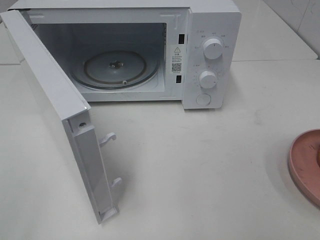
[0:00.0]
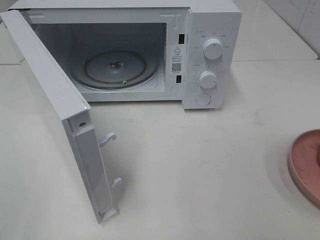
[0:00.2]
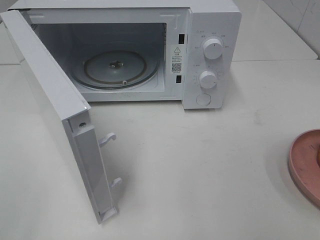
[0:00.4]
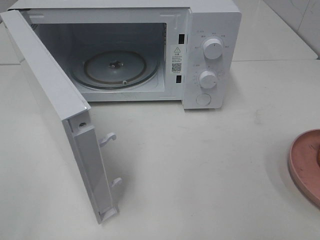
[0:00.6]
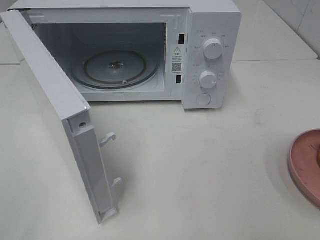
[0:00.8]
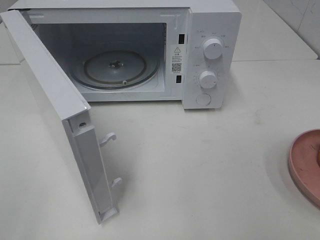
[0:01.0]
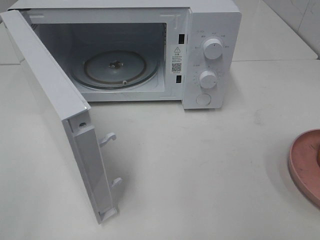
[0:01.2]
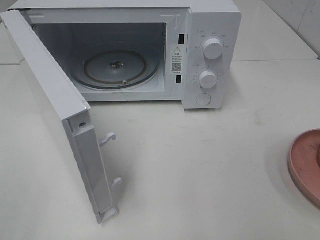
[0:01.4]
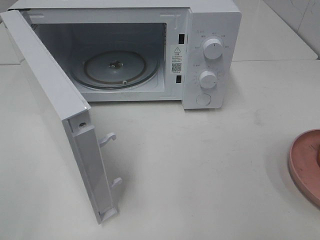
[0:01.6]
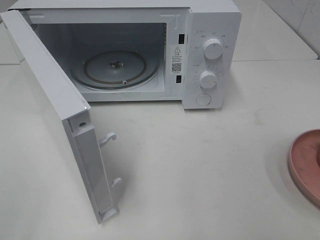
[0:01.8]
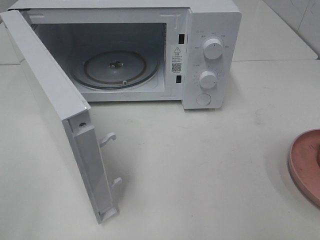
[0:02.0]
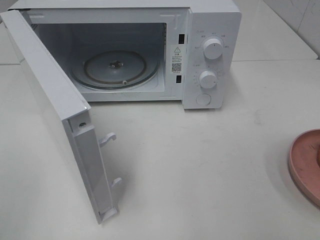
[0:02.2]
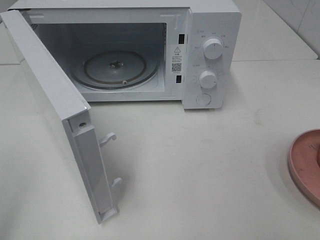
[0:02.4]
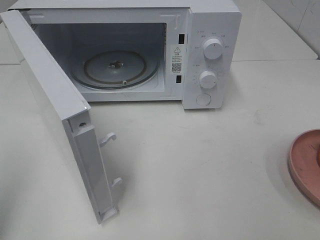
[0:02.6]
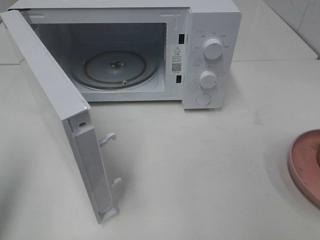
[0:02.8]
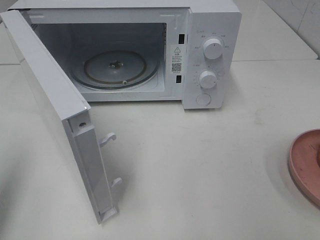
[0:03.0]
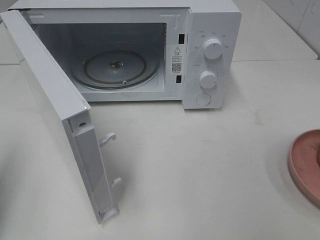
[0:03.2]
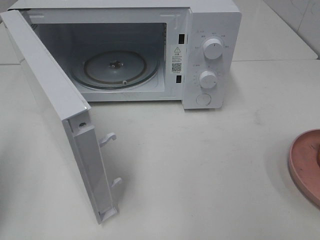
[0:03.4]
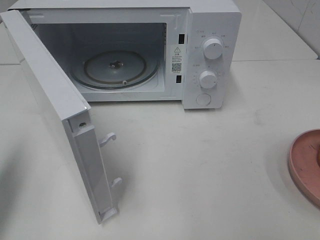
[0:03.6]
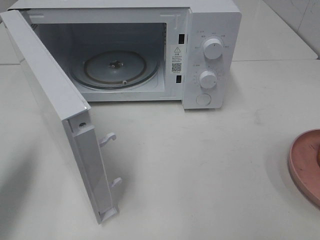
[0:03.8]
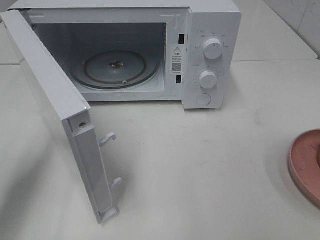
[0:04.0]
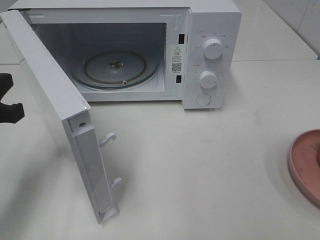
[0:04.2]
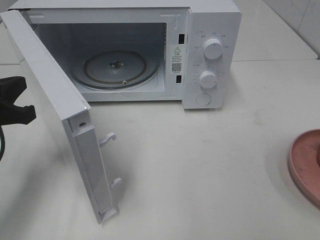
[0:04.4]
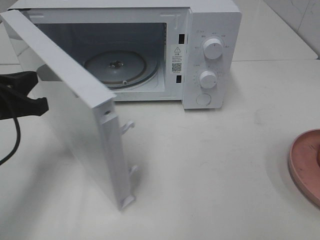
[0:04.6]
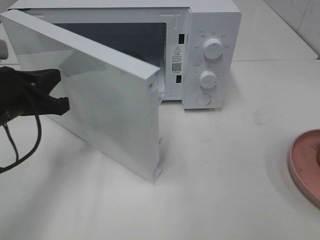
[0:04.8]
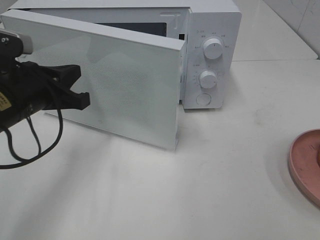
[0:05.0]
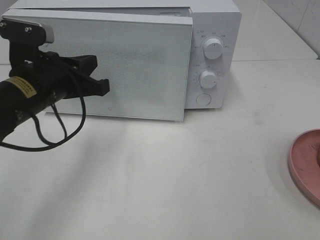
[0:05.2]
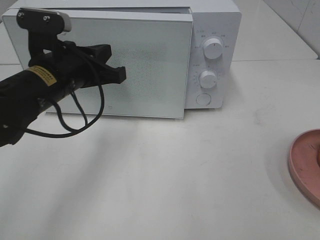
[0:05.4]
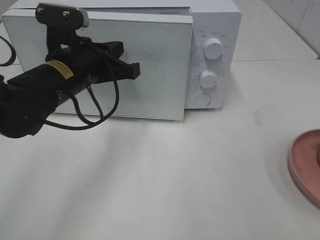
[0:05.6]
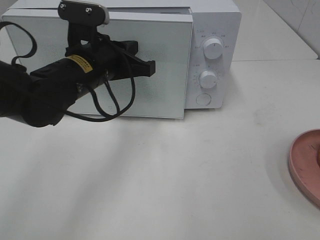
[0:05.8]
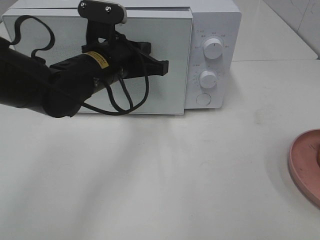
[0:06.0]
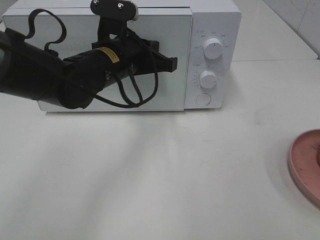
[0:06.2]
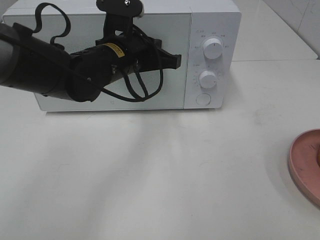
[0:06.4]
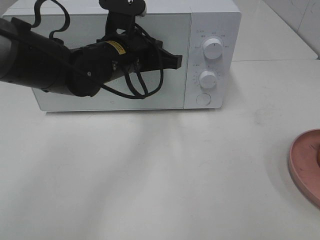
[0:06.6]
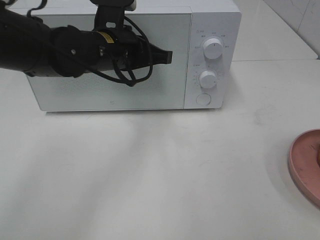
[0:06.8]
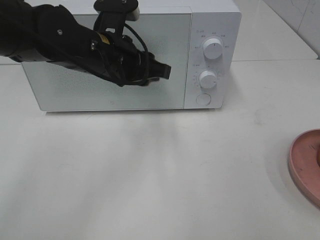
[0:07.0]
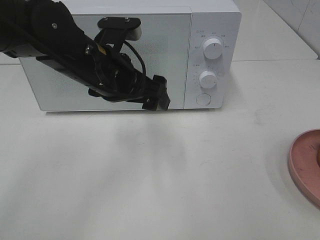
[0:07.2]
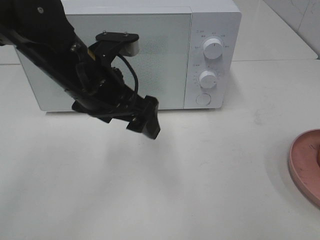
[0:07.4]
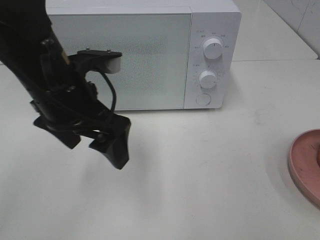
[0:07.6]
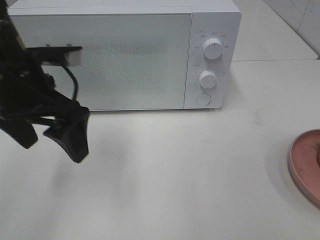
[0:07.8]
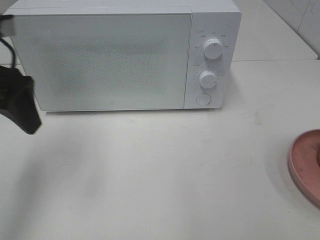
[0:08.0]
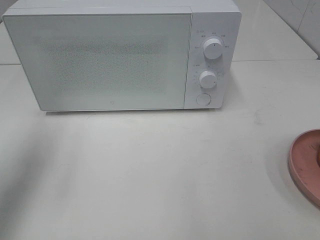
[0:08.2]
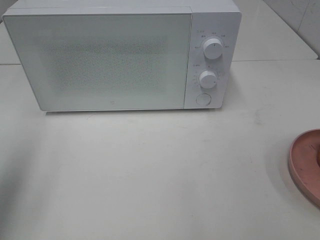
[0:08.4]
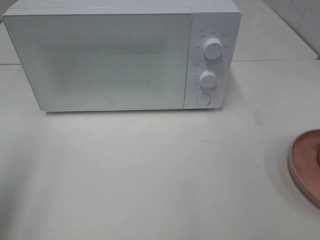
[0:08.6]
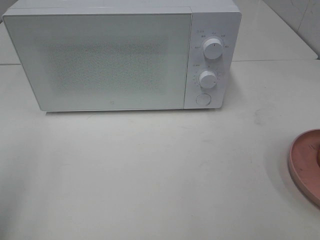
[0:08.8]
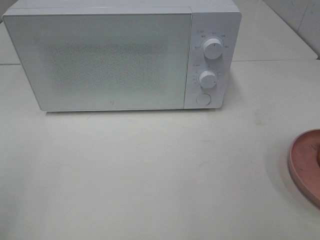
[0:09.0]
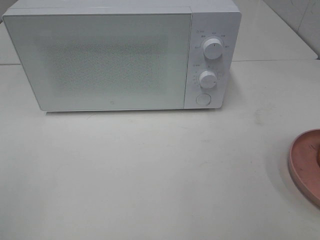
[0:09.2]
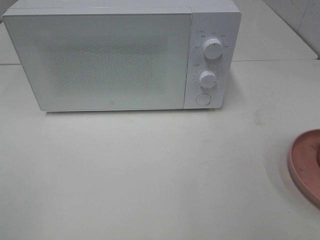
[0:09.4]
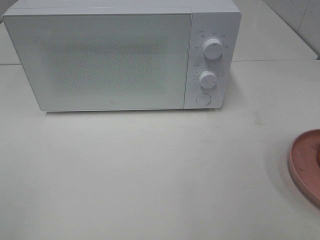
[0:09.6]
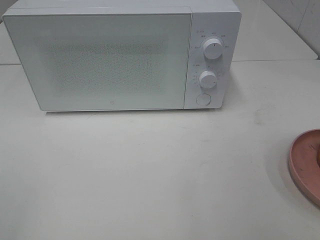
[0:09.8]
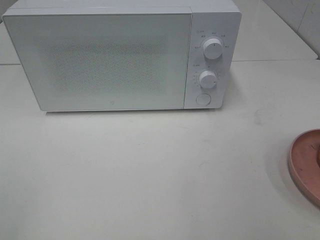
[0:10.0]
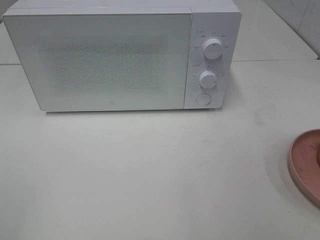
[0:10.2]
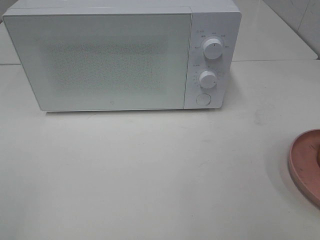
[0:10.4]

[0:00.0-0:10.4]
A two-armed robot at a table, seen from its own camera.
Task of the whole recording: Heat the burger.
Step, 0:00.0 to 0:07.0: Left hand: close the microwave door.
0:00.0 to 0:01.4: Both grippers stay put.
0:01.4 to 0:03.0: The left gripper travels forward by approximately 15 cm, and closes its fingers.
0:03.0 to 0:04.4: The left gripper heads downward, forward and to the right, covering about 15 cm.
0:04.4 to 0:06.0: The left gripper shifts some 20 cm to the right and forward.
0:06.0 to 0:07.4: The left gripper heads backward, covering approximately 5 cm, and opens its fingers.
0:07.4 to 0:09.0: The left gripper heads backward and to the left, covering approximately 30 cm.

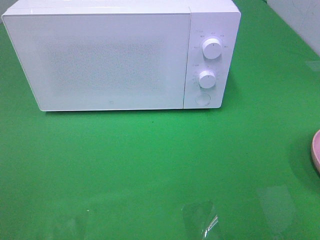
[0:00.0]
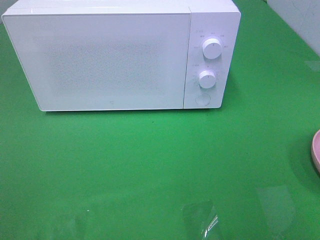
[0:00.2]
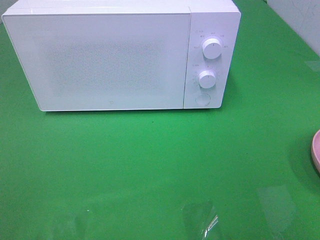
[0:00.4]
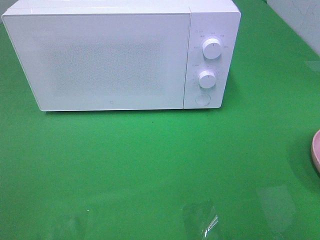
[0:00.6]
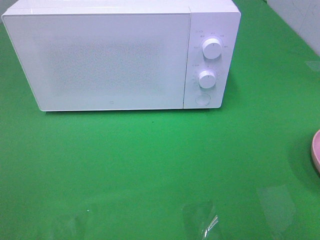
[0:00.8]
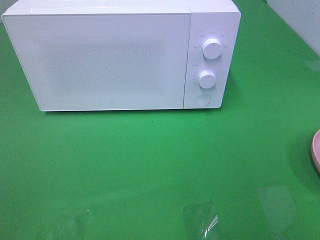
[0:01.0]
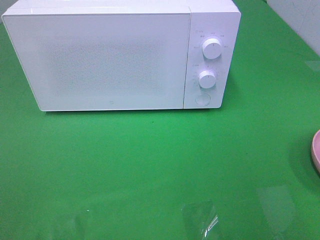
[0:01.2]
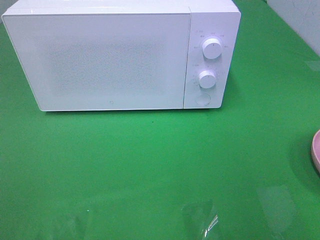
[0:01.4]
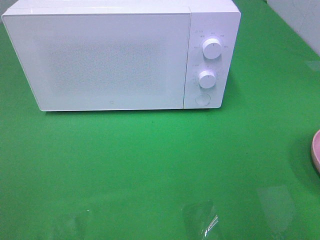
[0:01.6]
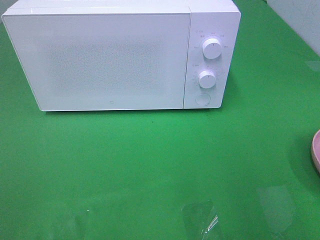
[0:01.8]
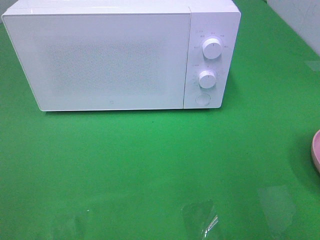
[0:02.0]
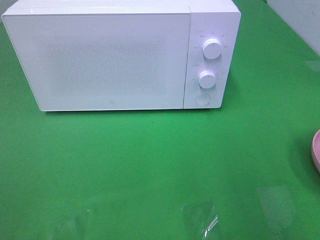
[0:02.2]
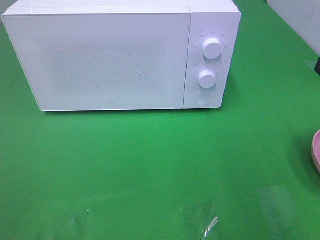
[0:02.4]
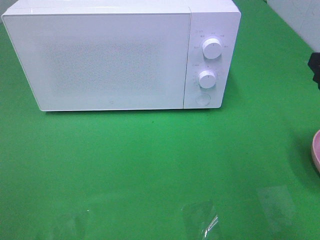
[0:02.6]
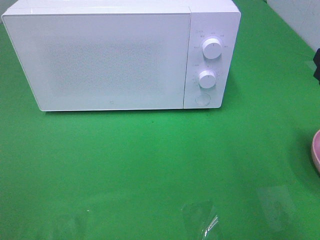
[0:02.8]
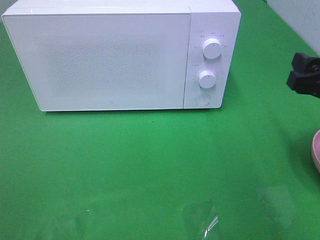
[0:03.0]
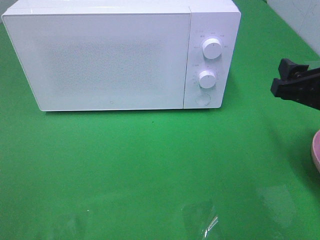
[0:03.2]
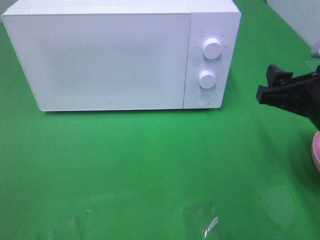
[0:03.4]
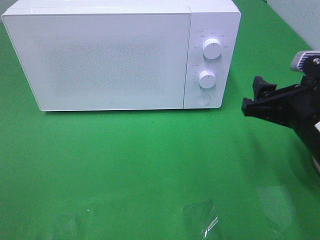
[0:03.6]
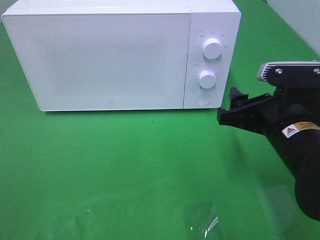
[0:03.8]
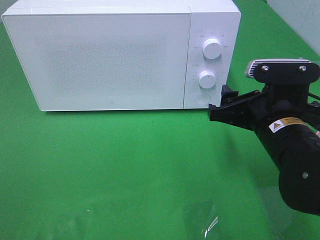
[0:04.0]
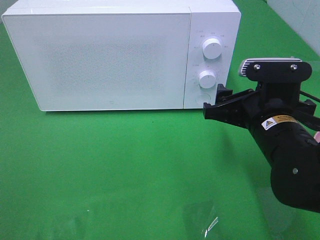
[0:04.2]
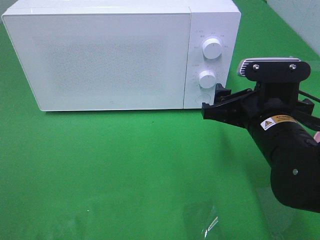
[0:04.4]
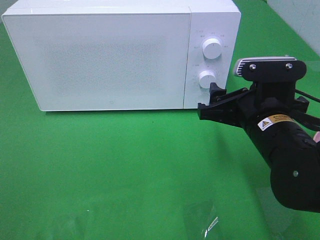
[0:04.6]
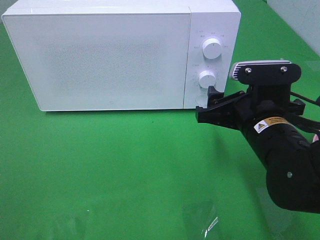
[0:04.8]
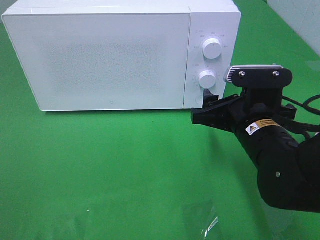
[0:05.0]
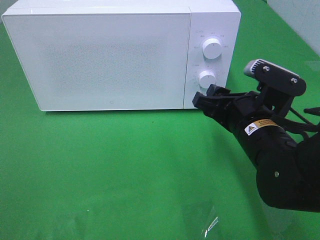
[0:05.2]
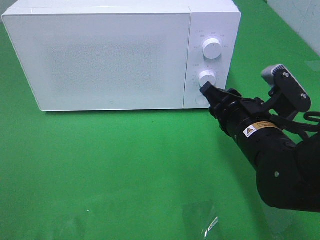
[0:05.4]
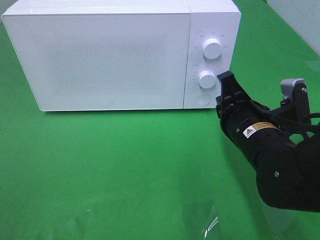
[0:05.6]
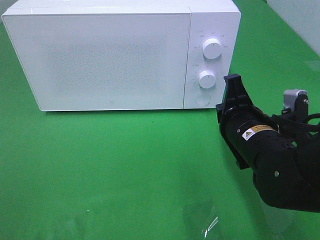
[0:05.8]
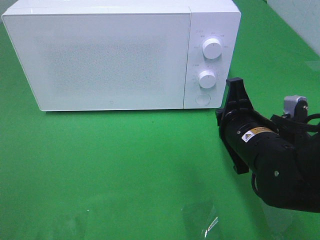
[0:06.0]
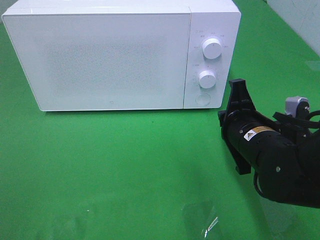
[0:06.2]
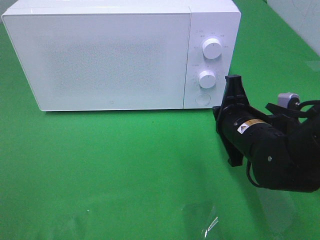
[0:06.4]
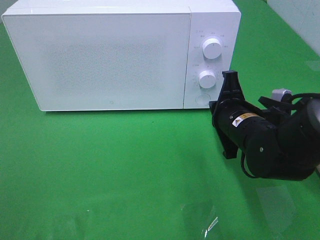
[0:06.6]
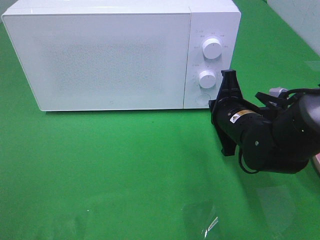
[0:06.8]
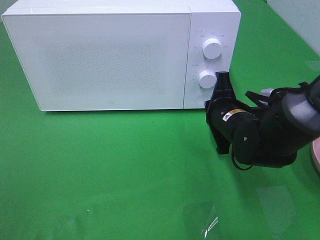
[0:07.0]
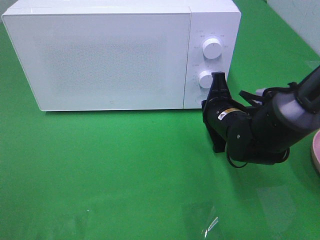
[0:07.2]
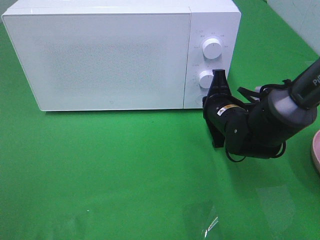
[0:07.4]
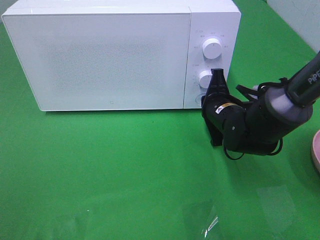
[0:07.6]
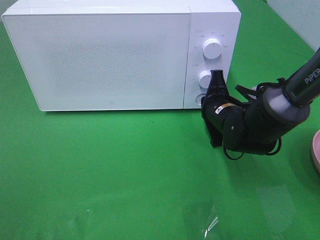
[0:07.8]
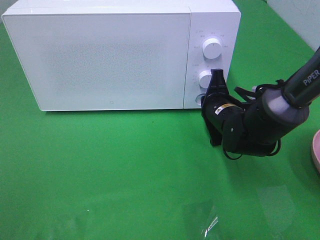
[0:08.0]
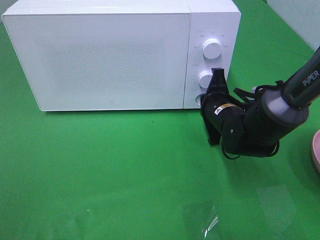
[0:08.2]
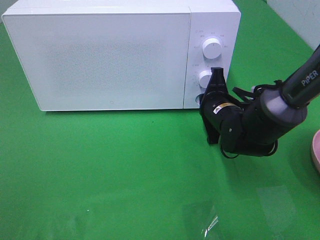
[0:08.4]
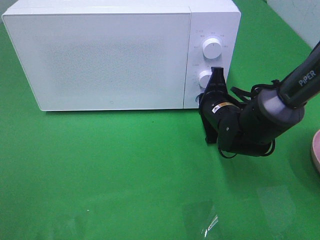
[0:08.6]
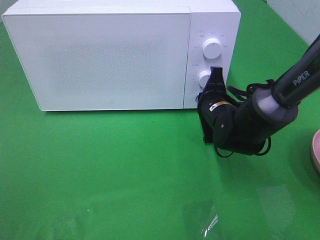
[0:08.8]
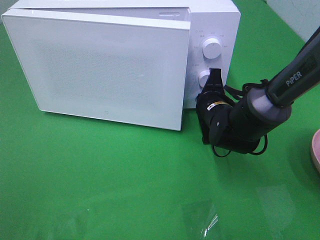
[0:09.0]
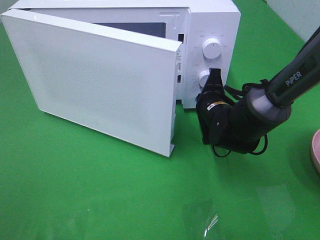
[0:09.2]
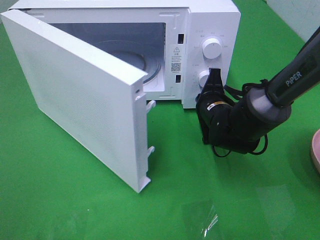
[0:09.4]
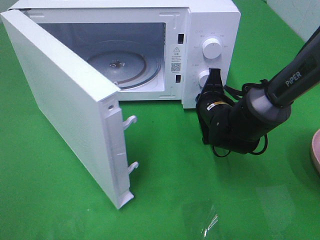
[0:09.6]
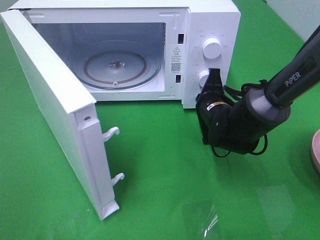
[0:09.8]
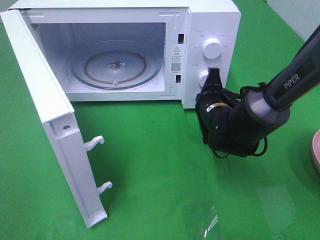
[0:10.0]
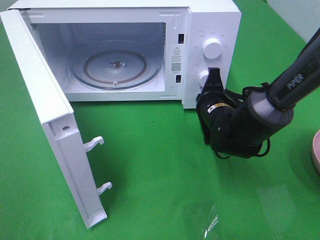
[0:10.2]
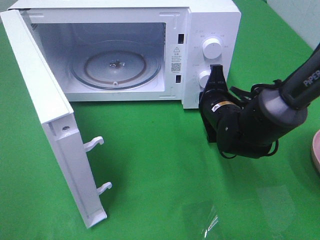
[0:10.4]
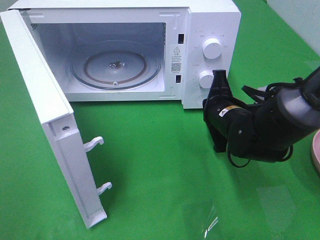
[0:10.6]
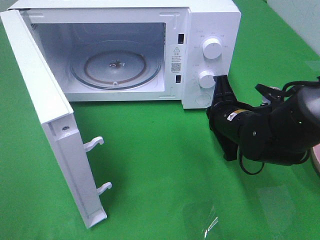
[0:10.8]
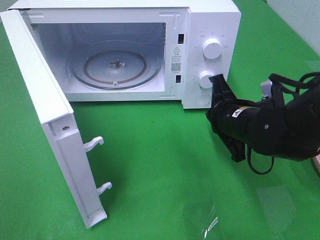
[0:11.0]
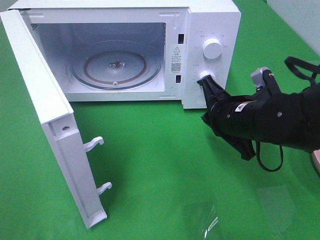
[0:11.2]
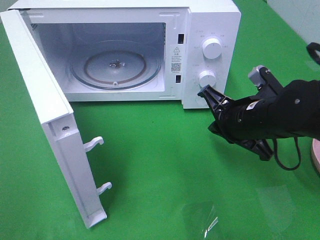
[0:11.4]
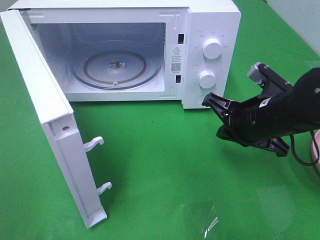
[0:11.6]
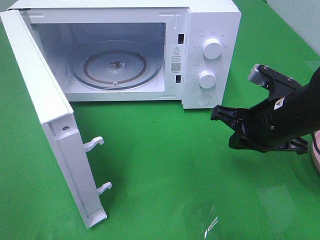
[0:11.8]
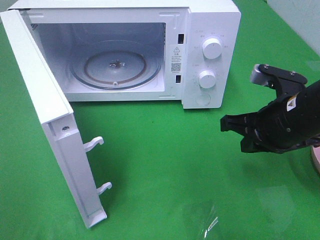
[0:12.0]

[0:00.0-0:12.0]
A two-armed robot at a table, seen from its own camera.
Task of the whole recording: Heat the burger.
Step, 0:00.0 to 0:10.6: Right hand: press the switch.
0:01.6 to 0:03.0: The right gripper goes about 15 cm forward and downward.
0:03.0 to 0:04.4: The right gripper is displaced to the left and downward by approximately 10 cm.
0:04.4 to 0:06.0: The right gripper closes.
0:06.0 to 0:07.6: The right gripper goes roughly 10 cm forward.
0:07.6 to 0:09.0: There are only small adjustments of the grippers.
0:10.4 to 0:12.0: The right gripper heads backward, upward and to the right, covering about 15 cm.
